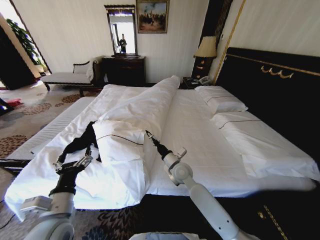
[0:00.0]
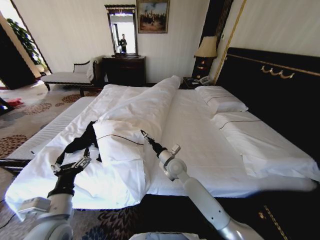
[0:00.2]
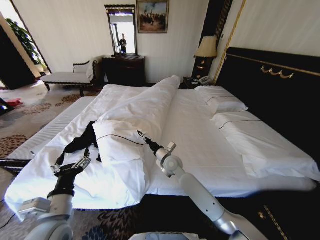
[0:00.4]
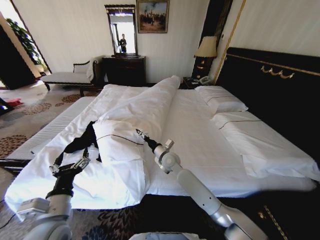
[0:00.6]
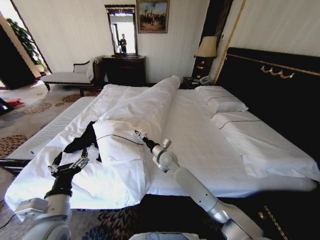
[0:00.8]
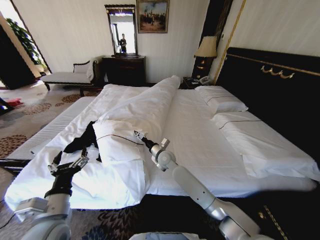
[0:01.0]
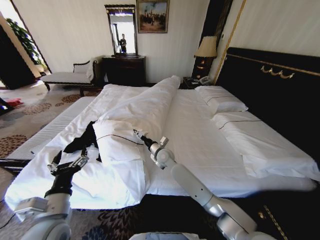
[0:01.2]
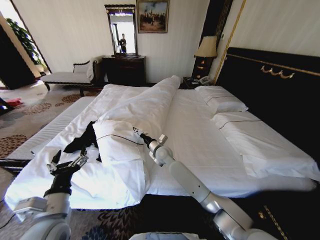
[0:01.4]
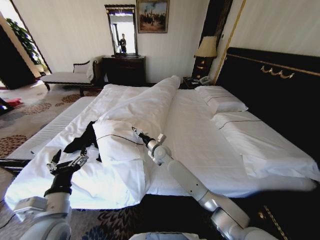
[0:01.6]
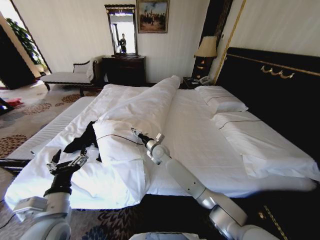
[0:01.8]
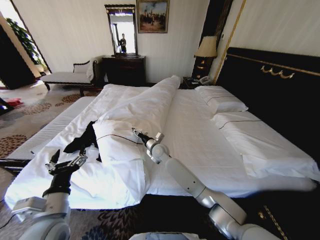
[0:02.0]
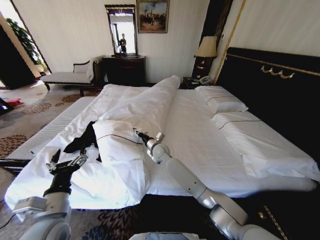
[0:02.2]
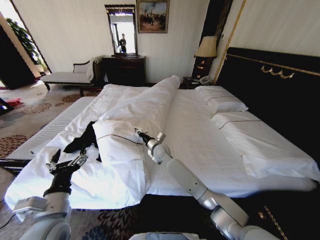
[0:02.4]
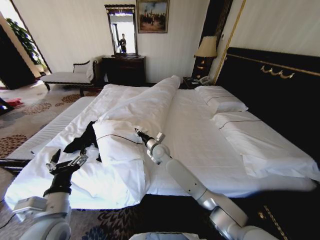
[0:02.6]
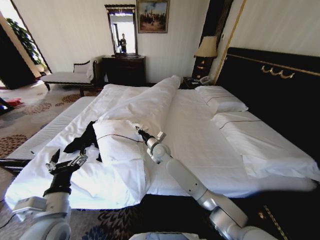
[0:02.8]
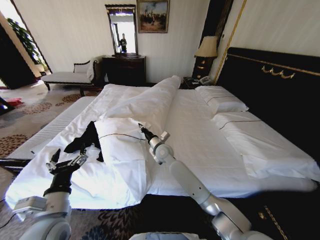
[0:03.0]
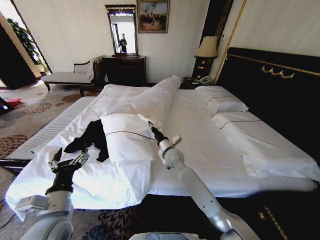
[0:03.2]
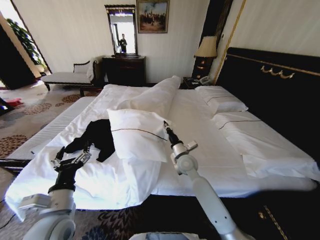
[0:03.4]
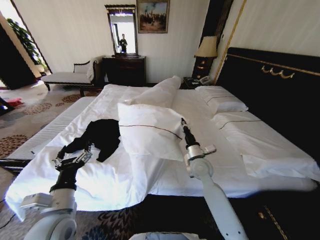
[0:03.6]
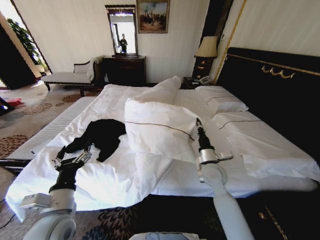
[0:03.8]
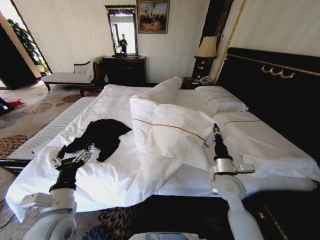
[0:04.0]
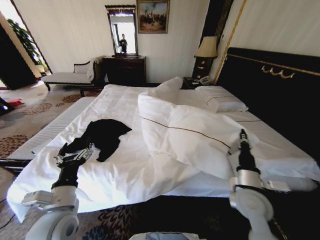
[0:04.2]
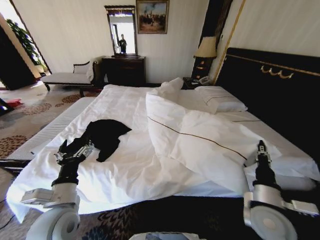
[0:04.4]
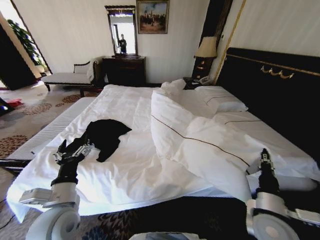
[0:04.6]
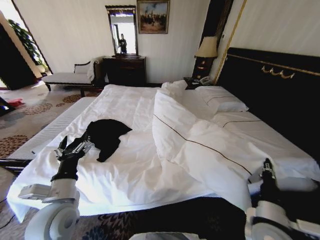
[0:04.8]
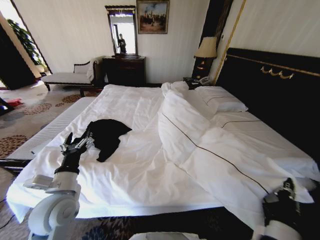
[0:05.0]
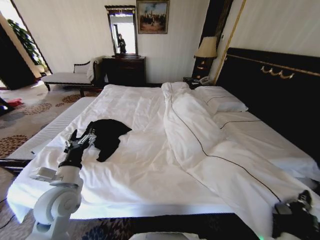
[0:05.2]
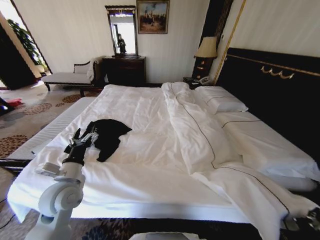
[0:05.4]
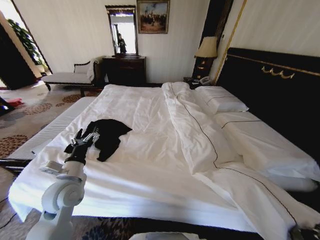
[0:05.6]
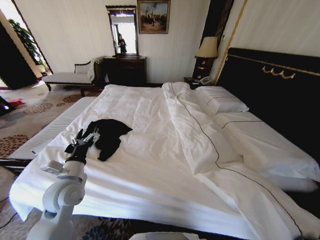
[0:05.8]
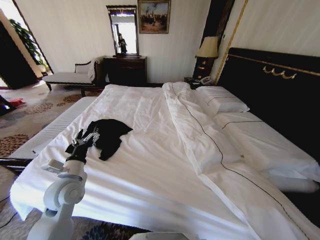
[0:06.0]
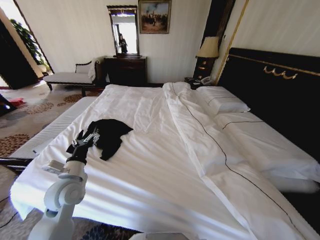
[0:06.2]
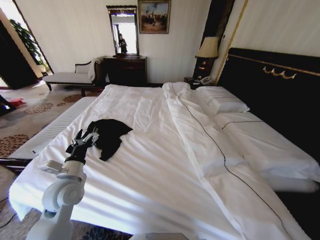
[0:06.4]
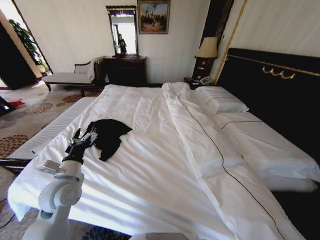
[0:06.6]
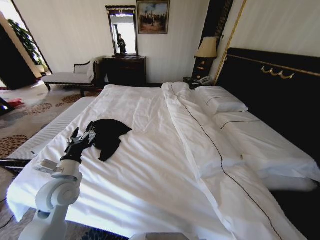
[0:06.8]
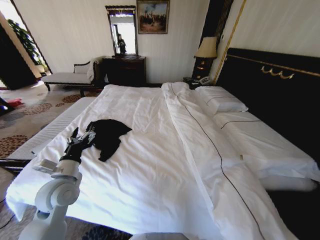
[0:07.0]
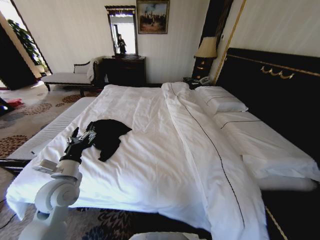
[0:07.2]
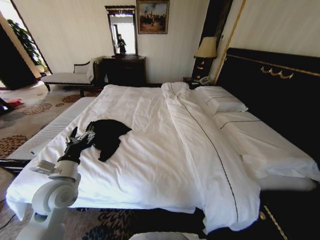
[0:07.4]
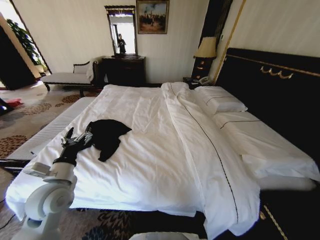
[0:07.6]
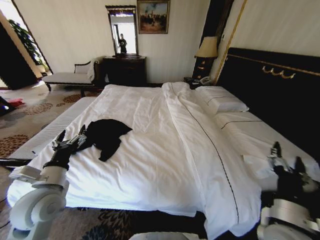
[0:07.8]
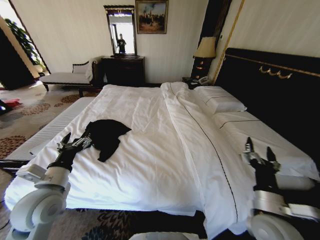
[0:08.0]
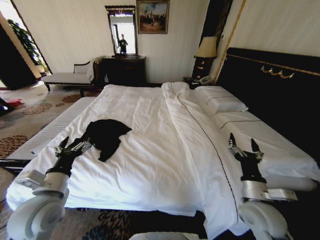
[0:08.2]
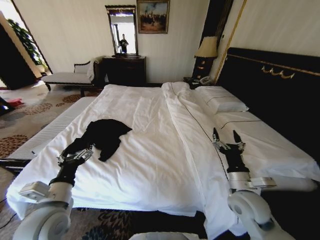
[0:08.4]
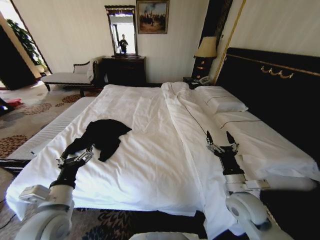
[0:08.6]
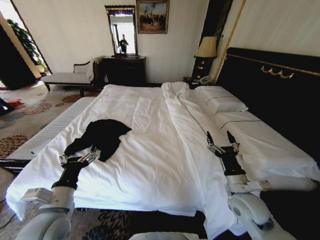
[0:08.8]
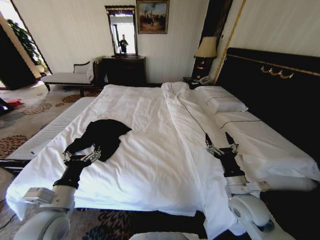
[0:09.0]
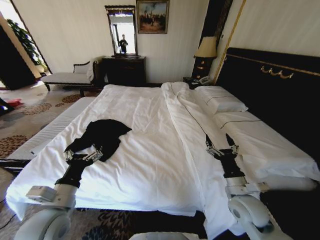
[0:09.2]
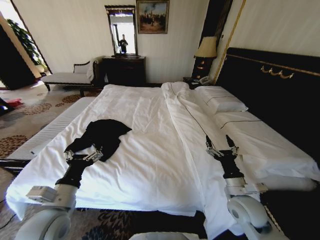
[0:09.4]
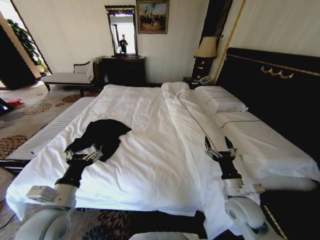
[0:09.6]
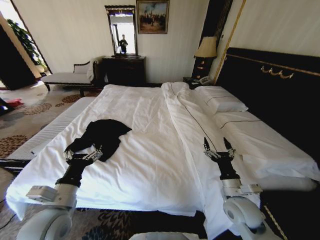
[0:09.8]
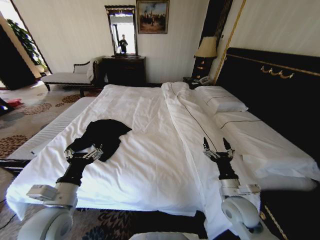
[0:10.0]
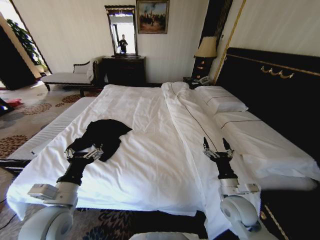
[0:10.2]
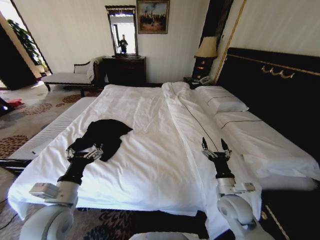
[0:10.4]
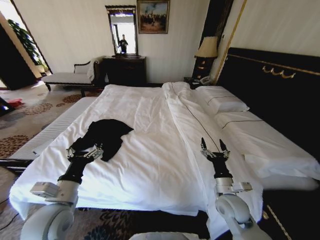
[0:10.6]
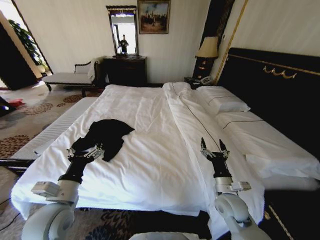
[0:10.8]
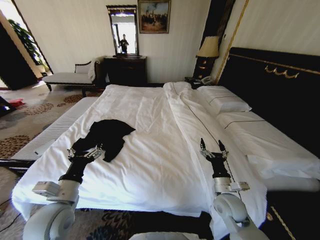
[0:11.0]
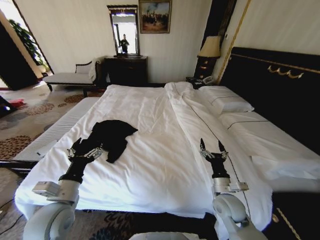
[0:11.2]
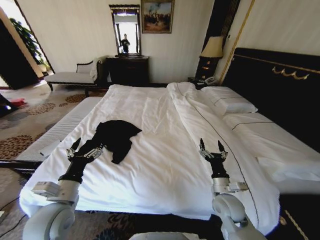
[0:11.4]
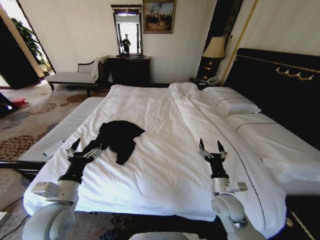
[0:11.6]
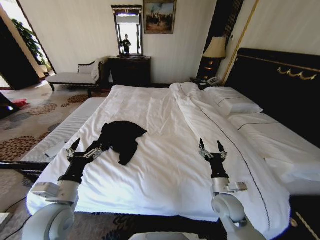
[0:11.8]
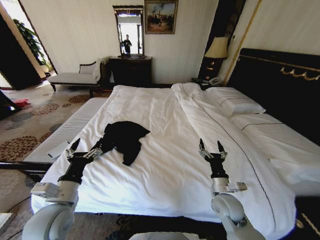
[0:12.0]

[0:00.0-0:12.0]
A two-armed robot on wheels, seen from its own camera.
Task of the whole recording: Fold the clothes on the bed.
0:00.0 to 0:01.6: The right gripper goes about 15 cm forward and to the left.
0:01.6 to 0:03.0: The right gripper closes.
0:03.0 to 0:04.4: The right gripper moves to the right and backward, approximately 40 cm.
0:04.4 to 0:06.0: The left gripper is displaced forward by some 10 cm, while the right gripper heads backward and downward, covering approximately 20 cm.
0:06.0 to 0:07.6: The right gripper shifts about 5 cm upward, and opens up.
0:07.6 to 0:09.0: The right gripper heads forward, covering approximately 15 cm. The left gripper heads backward, covering about 5 cm.
0:09.0 to 0:10.4: The grippers stay close to where they were, moving slightly.

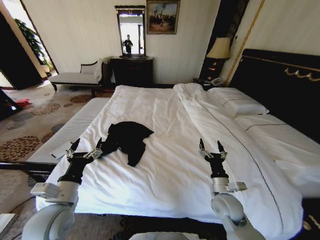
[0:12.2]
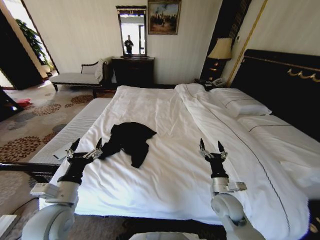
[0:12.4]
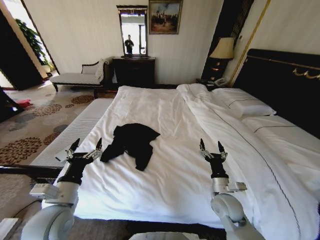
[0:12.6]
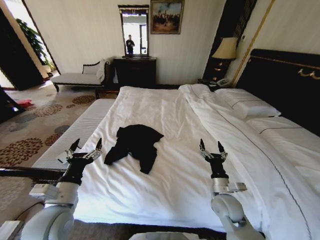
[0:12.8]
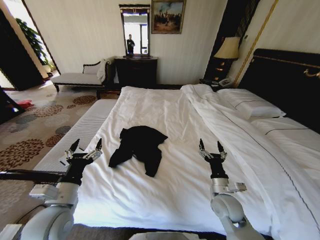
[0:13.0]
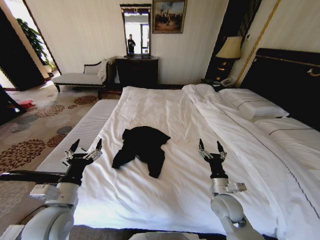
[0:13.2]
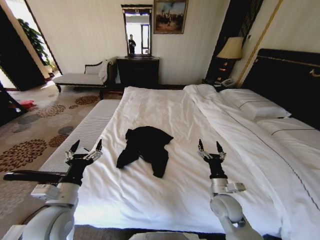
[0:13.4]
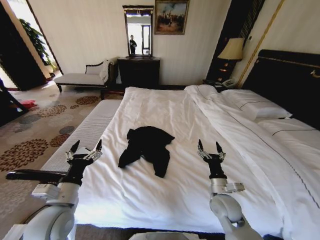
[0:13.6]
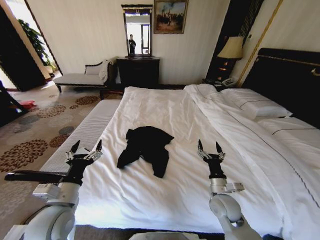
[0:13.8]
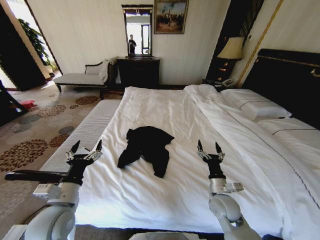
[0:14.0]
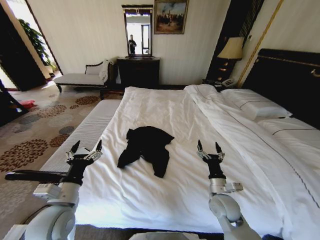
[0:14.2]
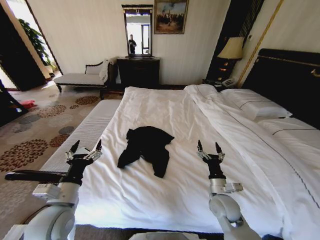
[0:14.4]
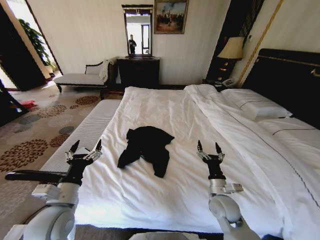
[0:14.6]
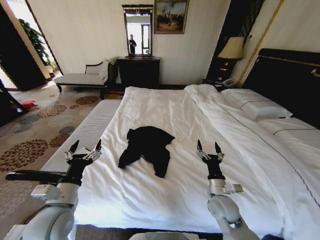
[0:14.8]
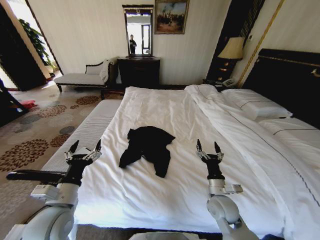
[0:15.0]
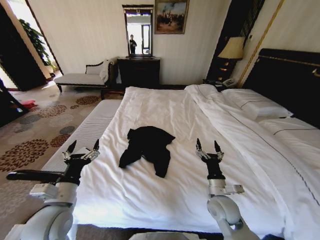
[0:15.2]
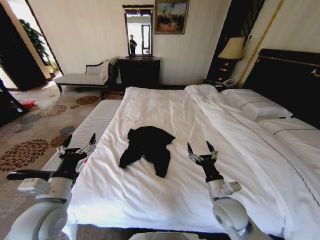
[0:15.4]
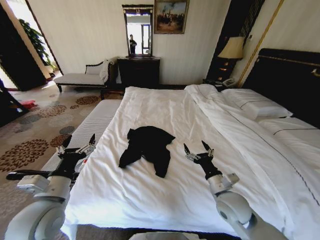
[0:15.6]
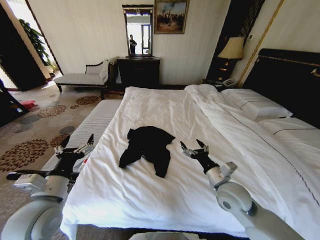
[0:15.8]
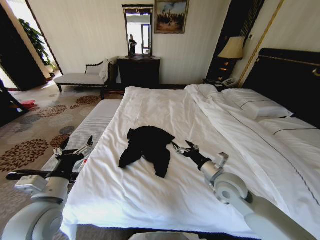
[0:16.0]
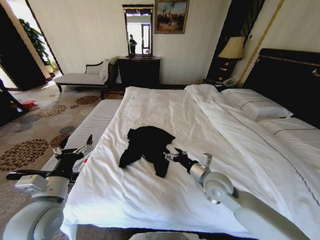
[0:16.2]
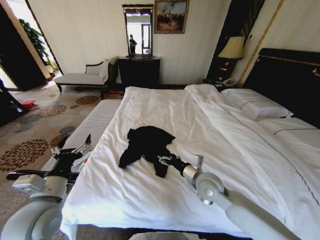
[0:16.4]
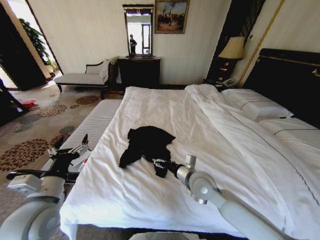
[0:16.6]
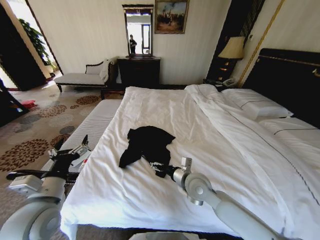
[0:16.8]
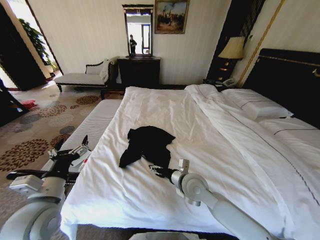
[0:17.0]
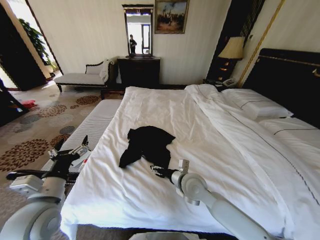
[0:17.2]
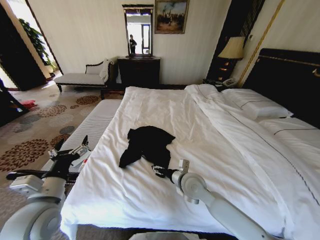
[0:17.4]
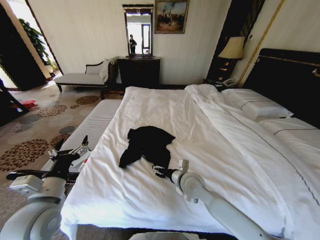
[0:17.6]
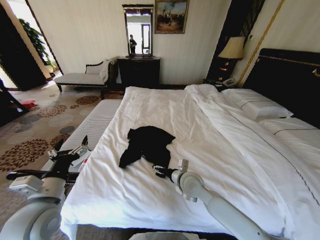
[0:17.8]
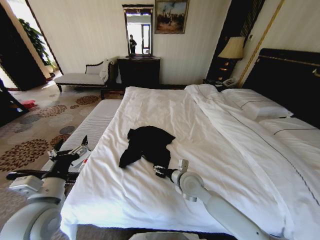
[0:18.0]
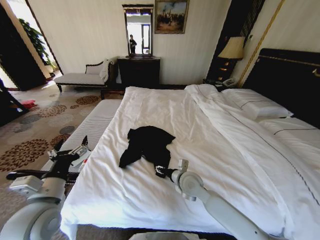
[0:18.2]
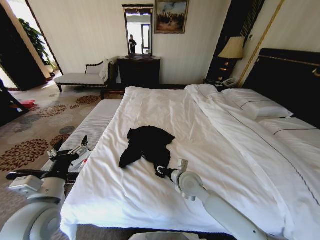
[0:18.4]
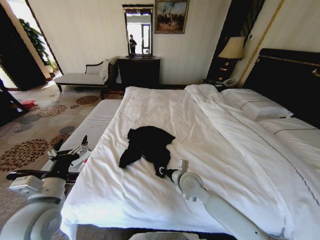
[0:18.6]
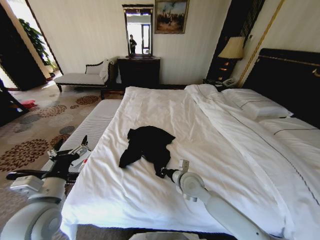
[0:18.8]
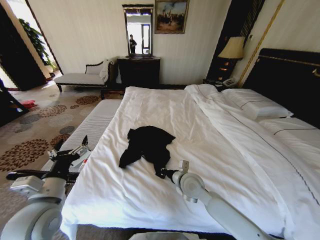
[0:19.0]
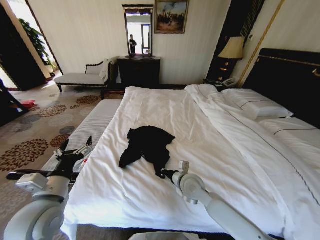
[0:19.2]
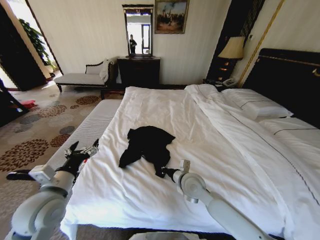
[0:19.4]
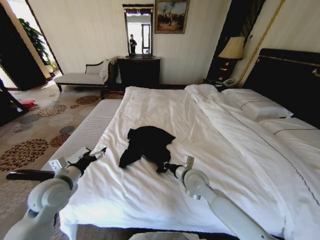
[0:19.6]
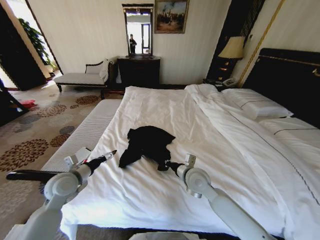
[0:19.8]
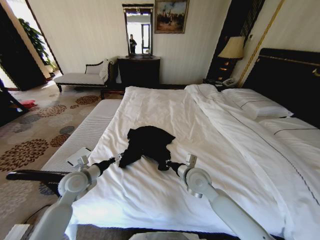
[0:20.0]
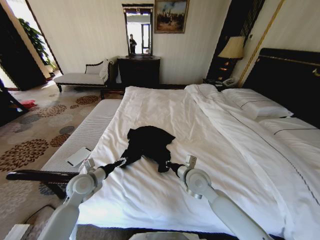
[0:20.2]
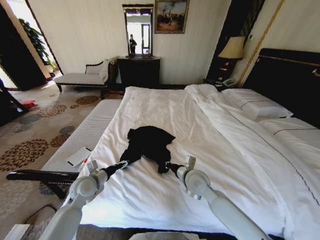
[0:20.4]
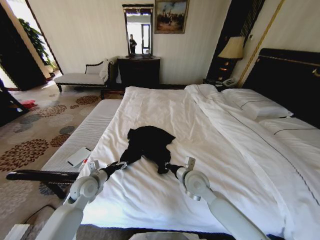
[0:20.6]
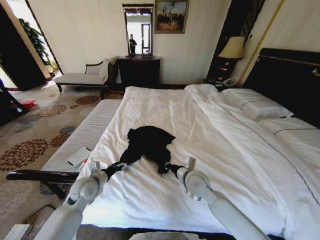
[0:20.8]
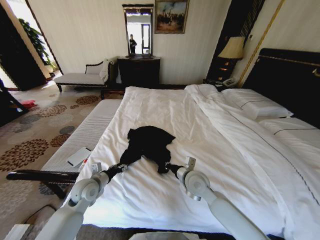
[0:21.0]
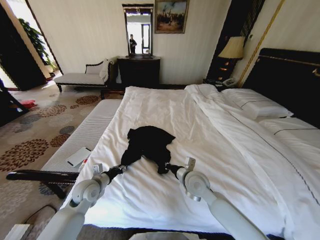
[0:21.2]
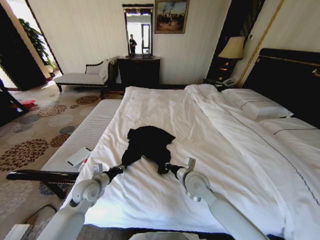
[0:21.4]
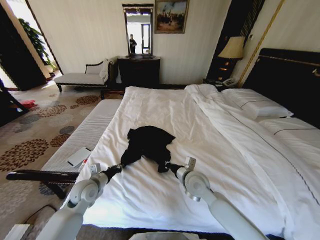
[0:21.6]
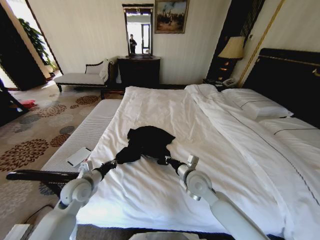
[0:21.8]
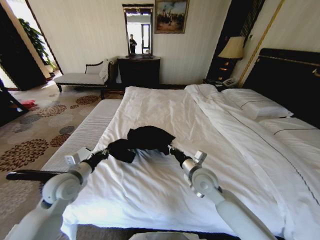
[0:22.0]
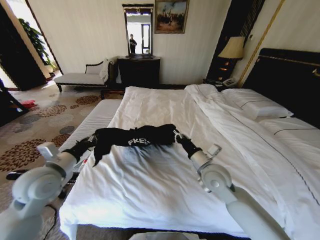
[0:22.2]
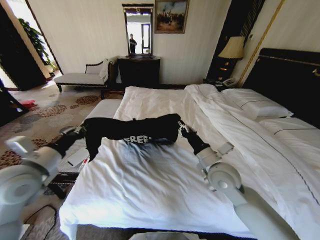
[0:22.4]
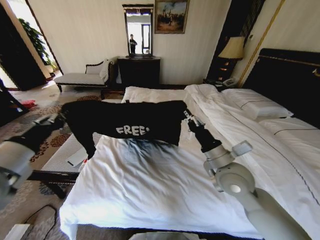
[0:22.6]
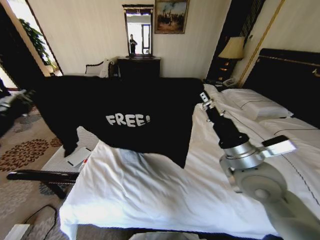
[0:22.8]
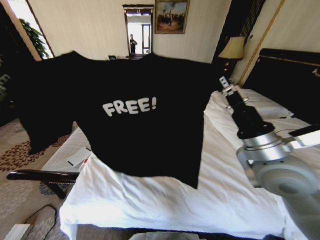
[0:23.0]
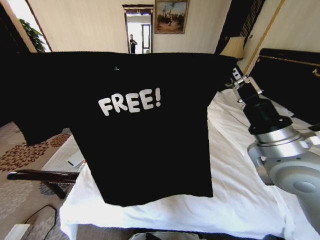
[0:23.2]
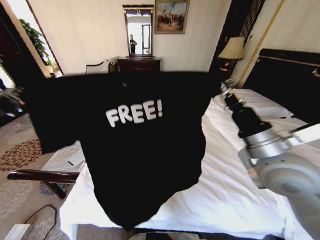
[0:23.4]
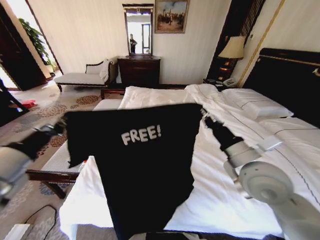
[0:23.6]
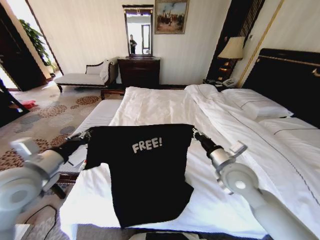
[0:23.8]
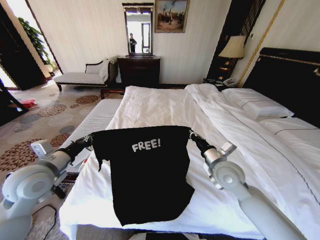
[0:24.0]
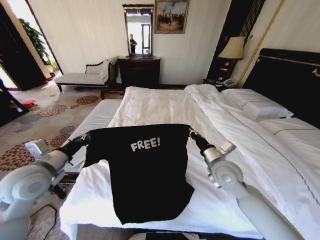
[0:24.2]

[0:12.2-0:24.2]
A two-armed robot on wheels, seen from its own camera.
Task of the whole recording: Fold the clothes on the bed.
0:13.8 to 0:15.2: The grippers make only small movements.
0:15.2 to 0:16.6: The right gripper travels to the left, upward and forward by roughly 15 cm.
0:16.6 to 0:18.2: The right gripper ends up roughly 5 cm from where it was.
0:18.2 to 0:19.8: The right gripper closes its fingers, while the left gripper goes approximately 15 cm forward and downward.
0:19.8 to 0:21.2: The left gripper shifts roughly 10 cm downward and to the right, and closes its fingers.
0:21.2 to 0:22.6: The left gripper heads upward, covering approximately 25 cm, while the right gripper shifts approximately 15 cm upward and to the right.
0:22.6 to 0:24.2: The left gripper travels downward and forward by some 10 cm. Meanwhile the right gripper goes roughly 5 cm downward.
